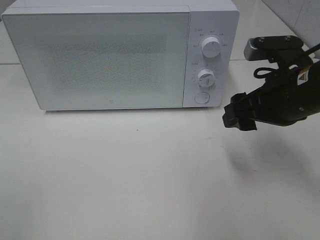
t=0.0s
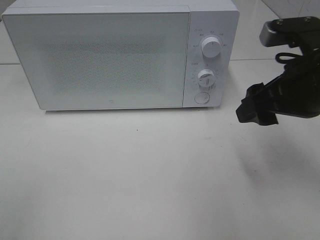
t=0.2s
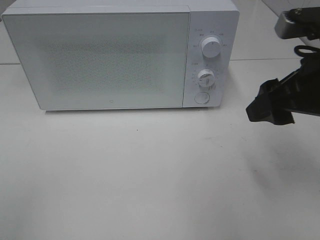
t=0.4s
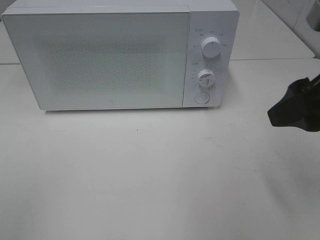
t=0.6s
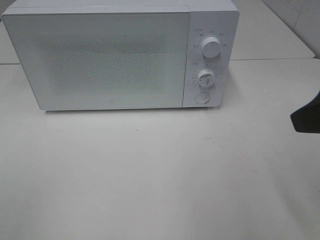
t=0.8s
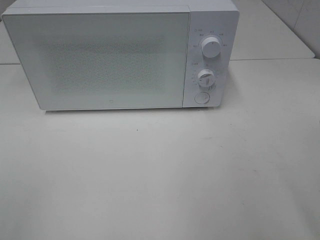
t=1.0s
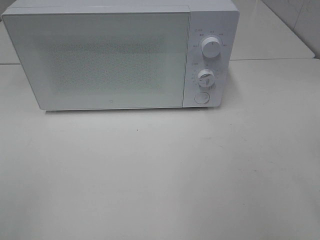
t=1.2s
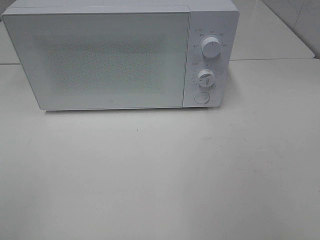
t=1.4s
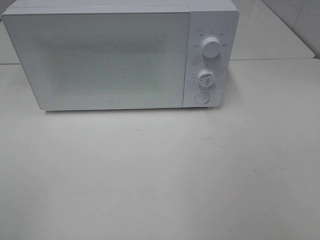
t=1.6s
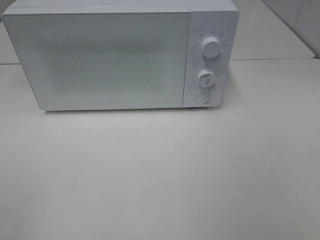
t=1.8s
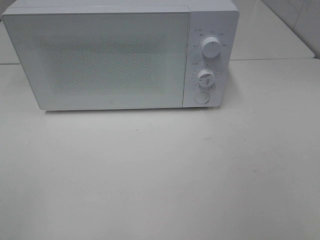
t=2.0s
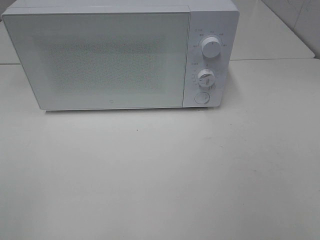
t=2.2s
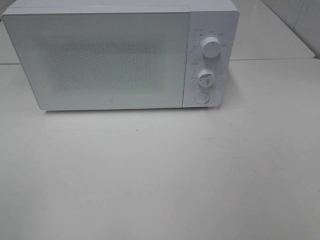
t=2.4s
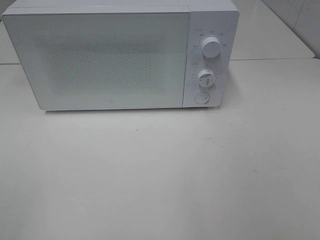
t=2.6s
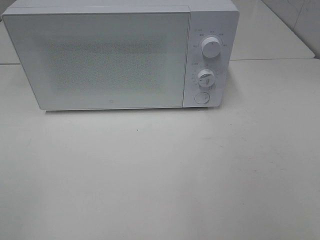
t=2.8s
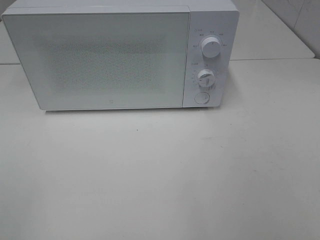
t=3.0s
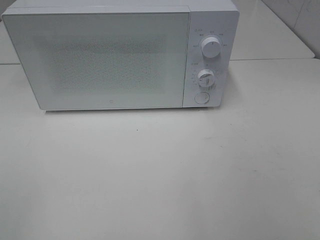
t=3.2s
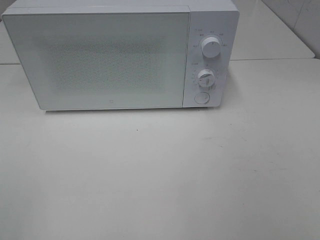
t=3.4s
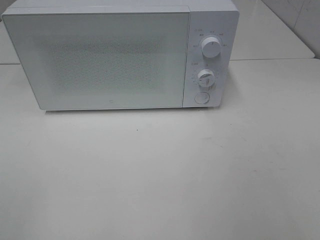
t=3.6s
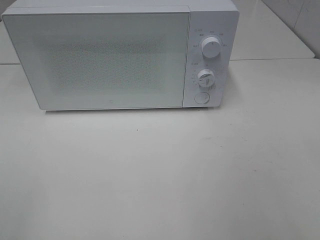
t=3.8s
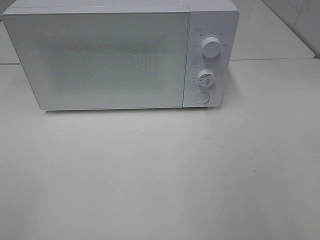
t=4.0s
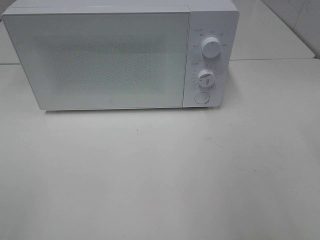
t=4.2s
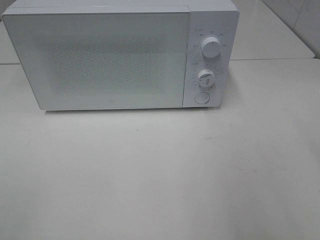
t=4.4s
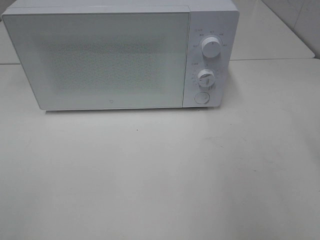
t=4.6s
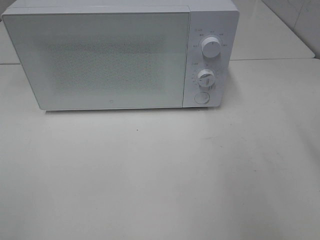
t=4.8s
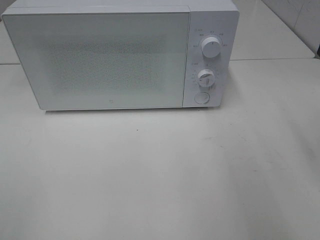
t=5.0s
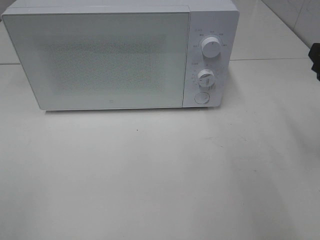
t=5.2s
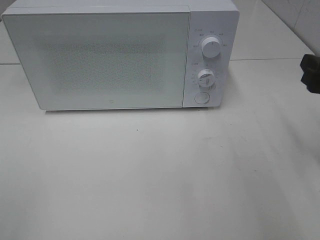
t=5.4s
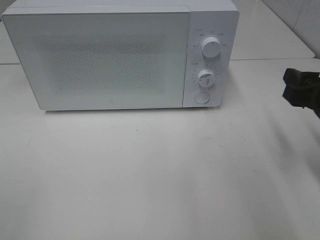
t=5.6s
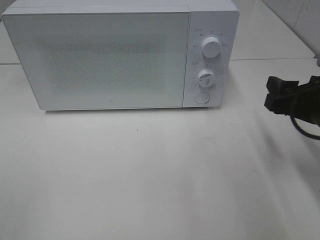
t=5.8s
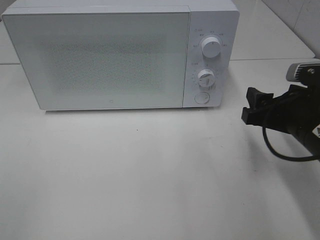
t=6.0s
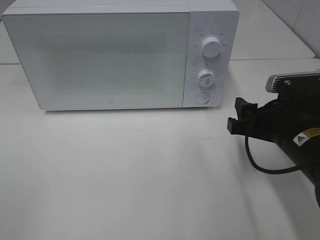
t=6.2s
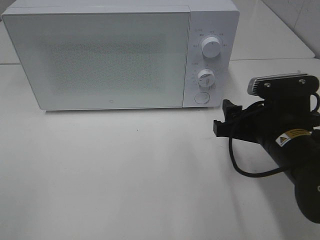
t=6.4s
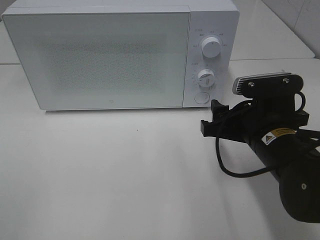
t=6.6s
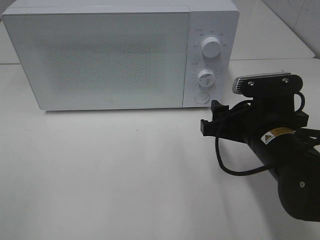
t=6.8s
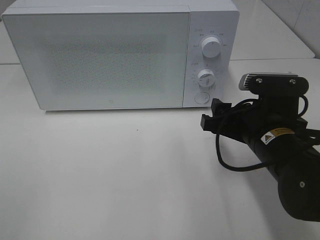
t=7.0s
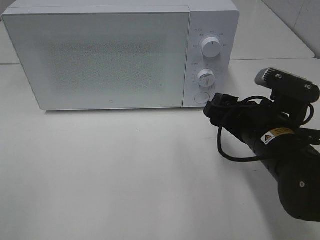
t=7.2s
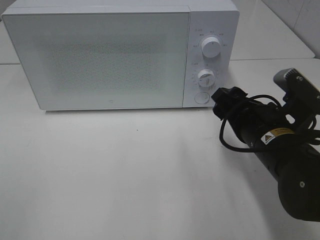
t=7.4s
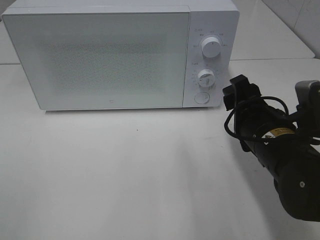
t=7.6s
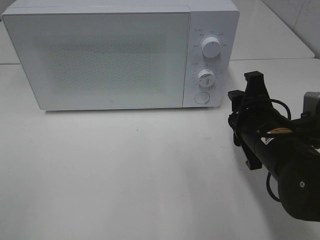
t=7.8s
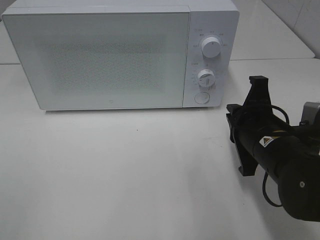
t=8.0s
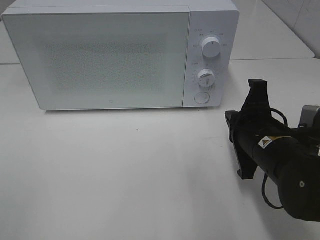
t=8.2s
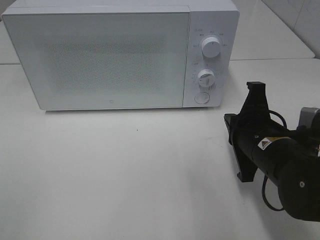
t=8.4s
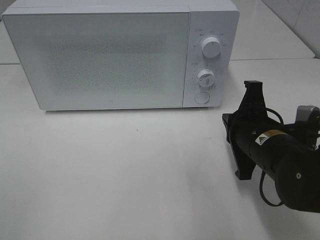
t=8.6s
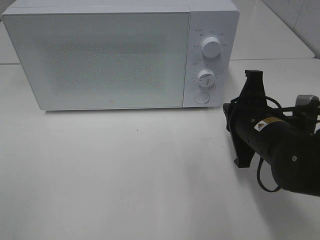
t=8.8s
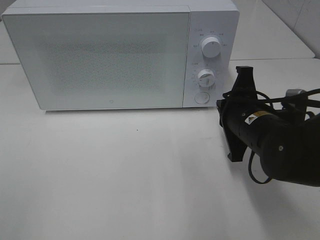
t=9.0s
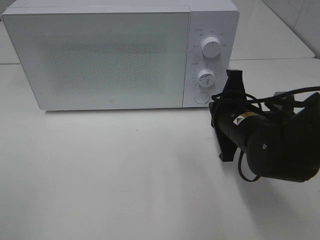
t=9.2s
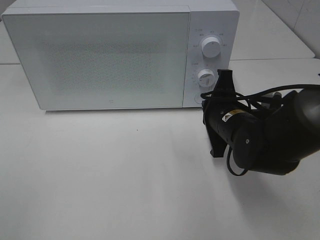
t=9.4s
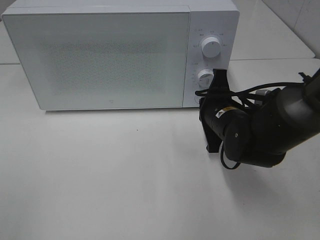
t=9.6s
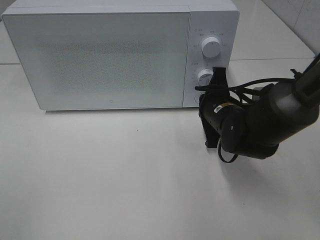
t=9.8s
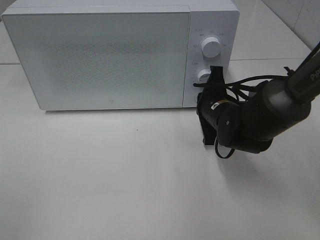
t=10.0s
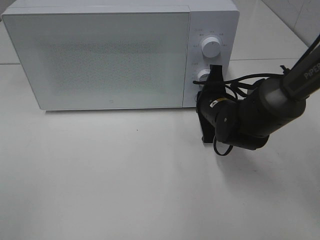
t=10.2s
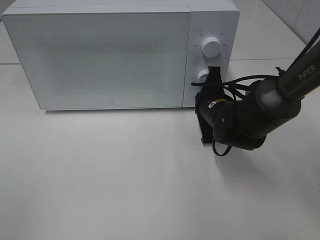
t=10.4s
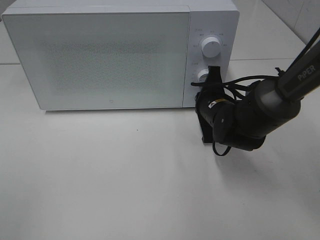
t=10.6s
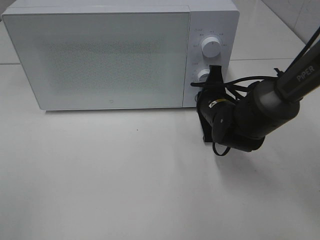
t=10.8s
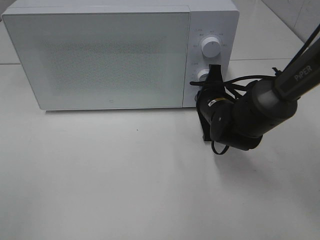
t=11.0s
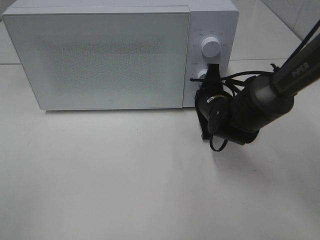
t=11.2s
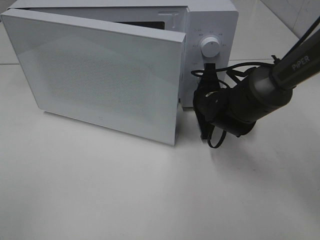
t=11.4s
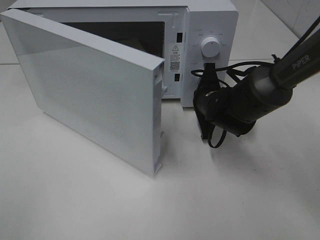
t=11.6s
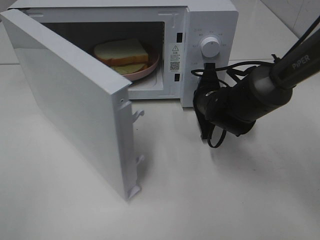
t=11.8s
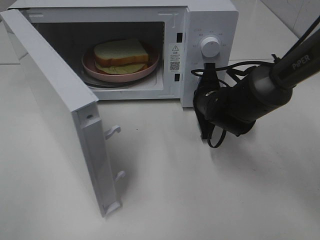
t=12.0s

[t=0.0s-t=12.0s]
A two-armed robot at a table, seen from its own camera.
Task of the whole recording: Heat Sandwich.
t=0.0s to t=1.6s: The right gripper travels backward, upward and to the right by about 25 cm.
t=4.4s to t=6.0s: The right gripper is displaced downward, forward and to the left by roughly 20 cm.
t=6.0s to t=7.6s: The right gripper is displaced to the left by some 5 cm.
t=7.6s to t=9.0s: The right gripper closes its fingers.
t=9.0s to t=10.4s: The right gripper travels forward by approximately 10 cm.

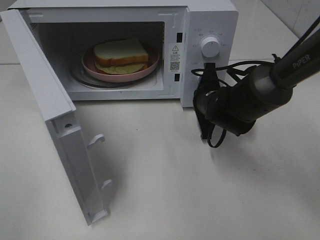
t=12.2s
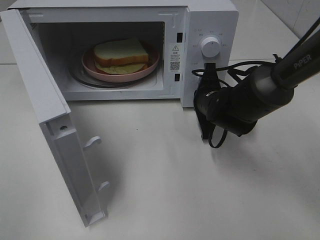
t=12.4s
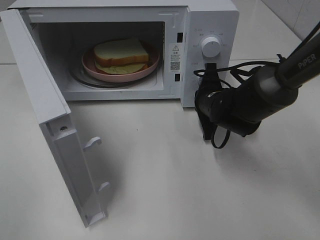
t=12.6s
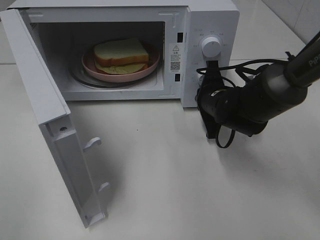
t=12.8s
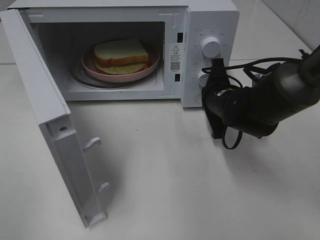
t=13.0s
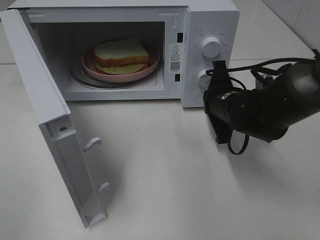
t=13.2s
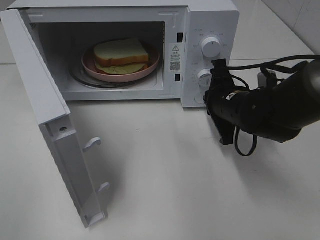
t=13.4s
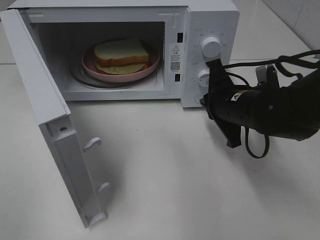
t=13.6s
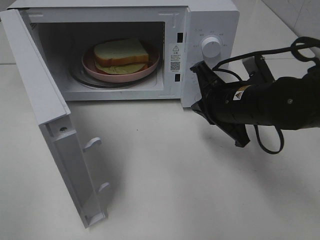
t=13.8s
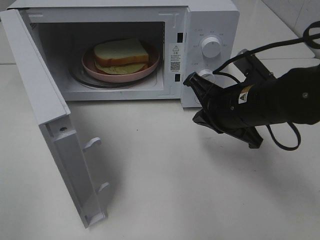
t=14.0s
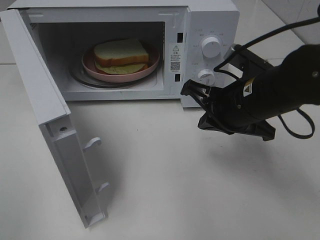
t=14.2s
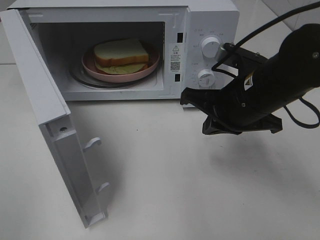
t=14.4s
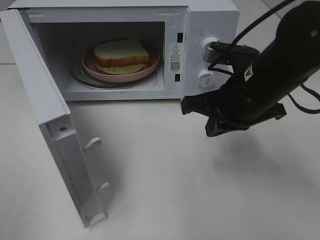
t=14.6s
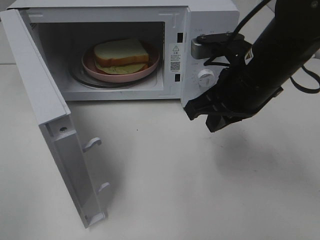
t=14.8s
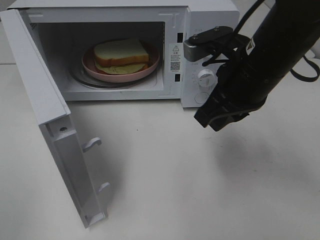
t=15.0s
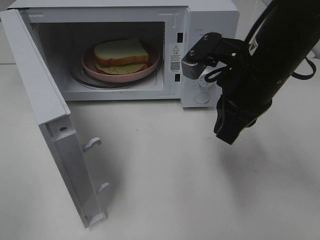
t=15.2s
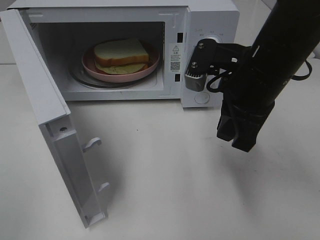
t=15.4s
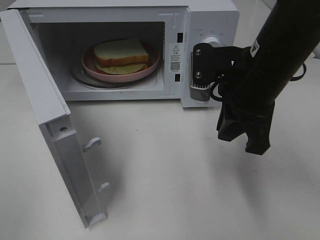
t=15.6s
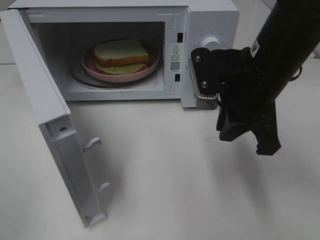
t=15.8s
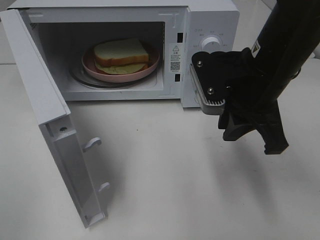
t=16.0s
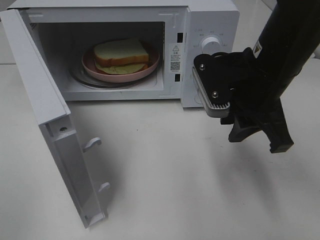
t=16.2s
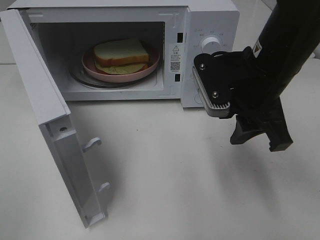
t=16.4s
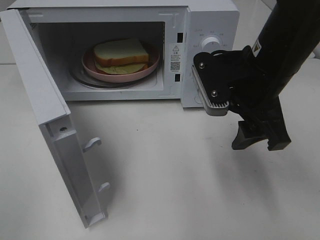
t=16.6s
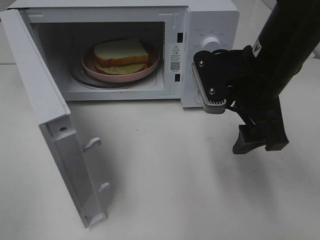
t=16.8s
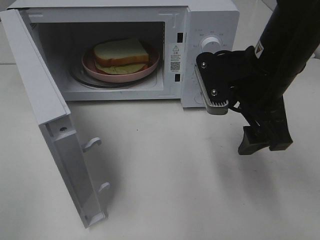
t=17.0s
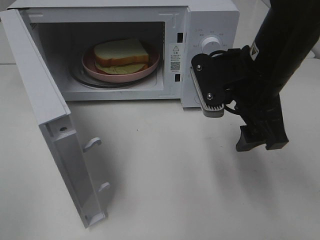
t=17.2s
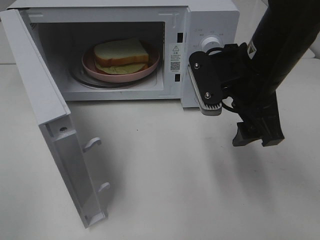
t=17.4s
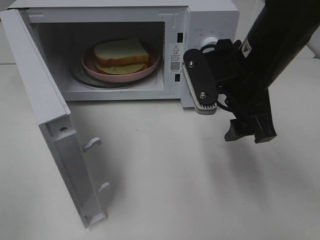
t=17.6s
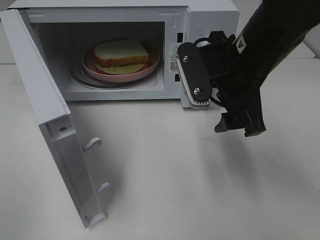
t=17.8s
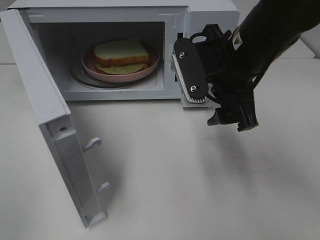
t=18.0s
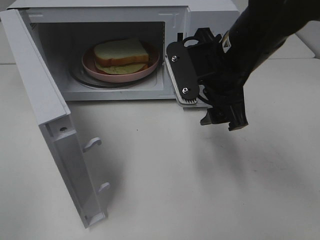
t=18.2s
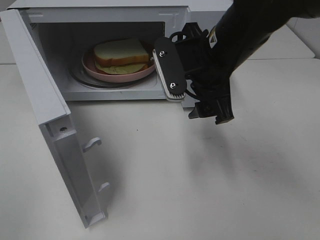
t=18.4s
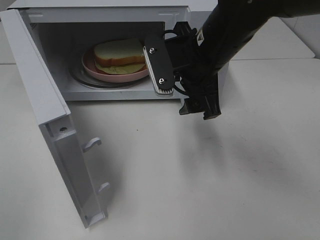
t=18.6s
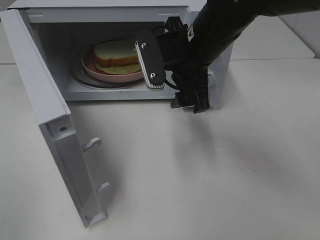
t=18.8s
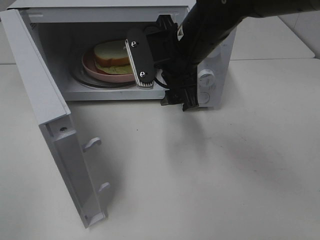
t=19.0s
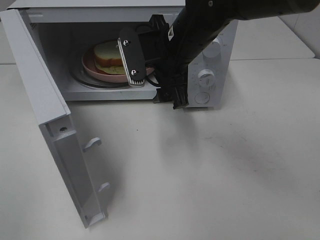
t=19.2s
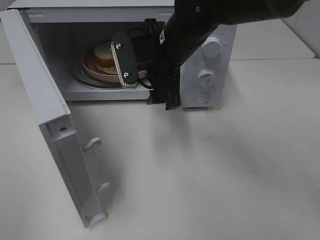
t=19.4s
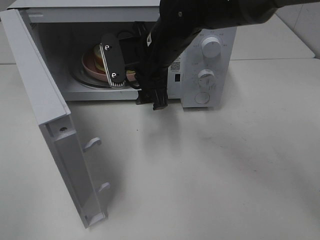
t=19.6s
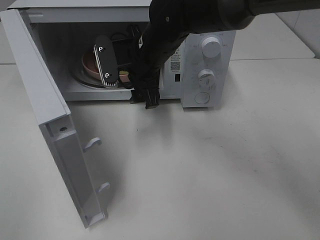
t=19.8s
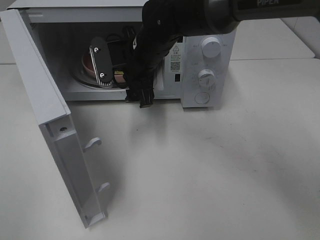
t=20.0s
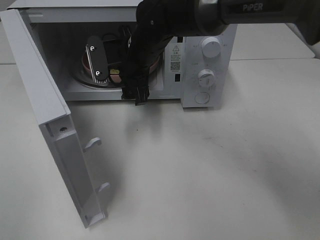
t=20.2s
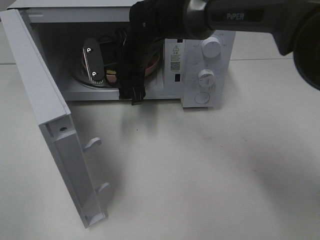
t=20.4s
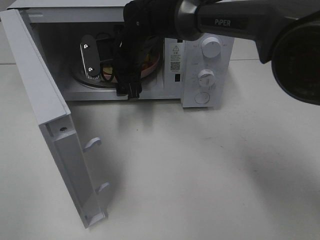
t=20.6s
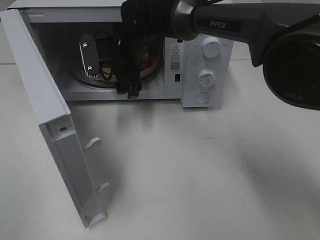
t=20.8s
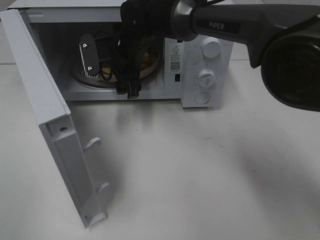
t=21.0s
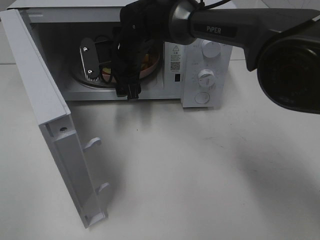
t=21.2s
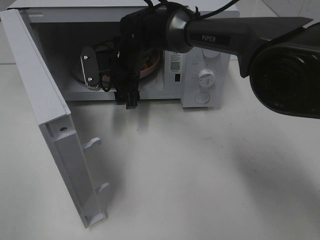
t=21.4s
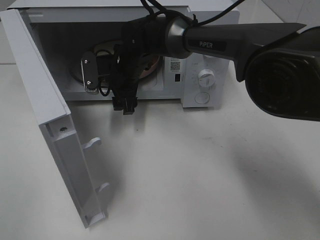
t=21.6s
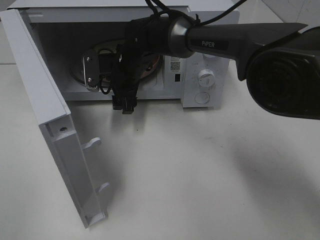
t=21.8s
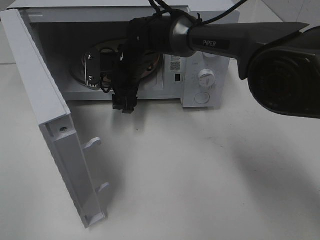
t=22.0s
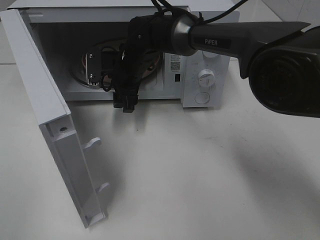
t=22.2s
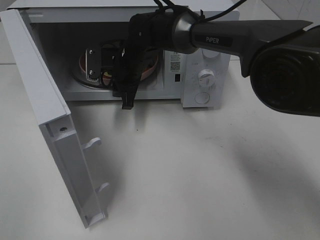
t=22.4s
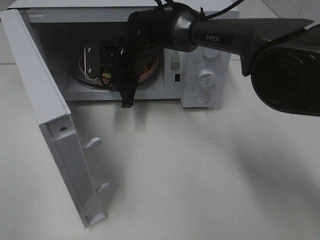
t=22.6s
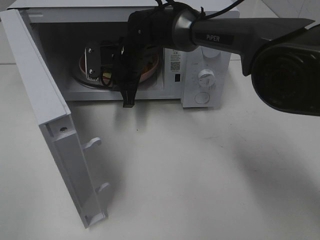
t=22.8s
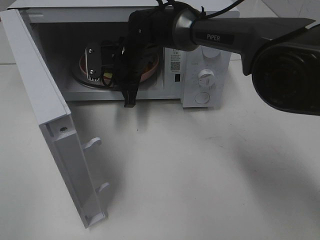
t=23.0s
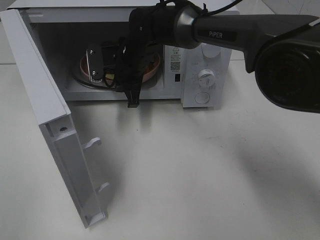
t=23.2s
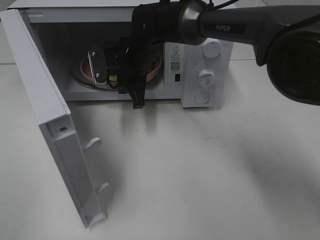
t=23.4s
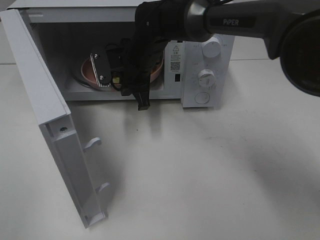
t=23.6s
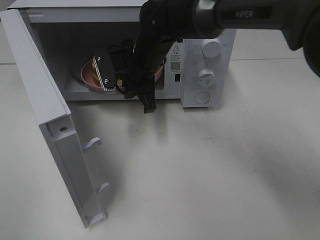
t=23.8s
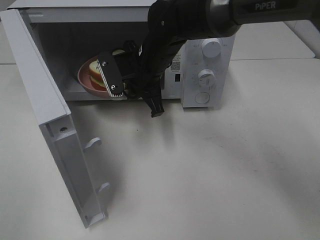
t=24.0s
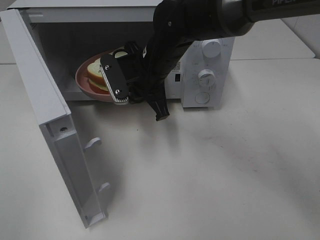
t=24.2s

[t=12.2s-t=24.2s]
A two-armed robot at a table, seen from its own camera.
Task of the whole recording: Heat Sandwich.
Step, t=13.8s to t=22.8s: Right hand: grab the plate with the sandwich.
t=12.2s to t=13.8s: The right gripper is displaced backward and upward by about 10 cm.
t=13.8s to t=15.2s: The right gripper heads upward, covering roughly 10 cm.
t=15.2s to t=16.6s: The right gripper opens.
t=16.6s to t=18.2s: The grippers make only small movements.
t=18.2s to t=19.8s: The right gripper heads to the left and forward, covering about 15 cm.
t=19.8s to t=21.2s: The right gripper shifts roughly 5 cm forward.
t=21.2s to t=22.6s: The right gripper closes its fingers.
t=22.6s to t=24.2s: The right gripper shifts roughly 5 cm backward.
